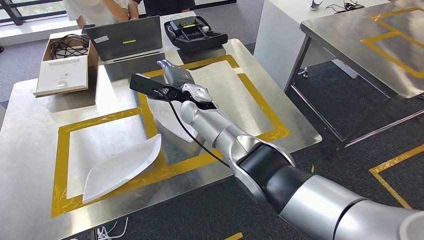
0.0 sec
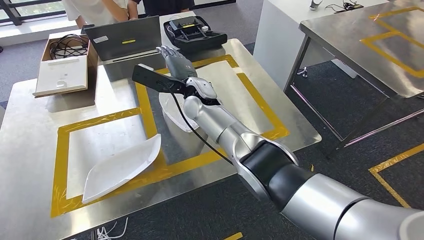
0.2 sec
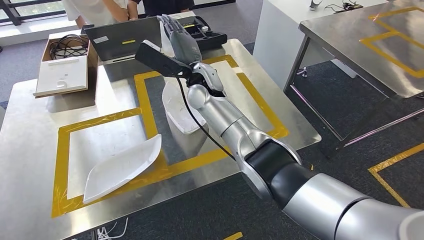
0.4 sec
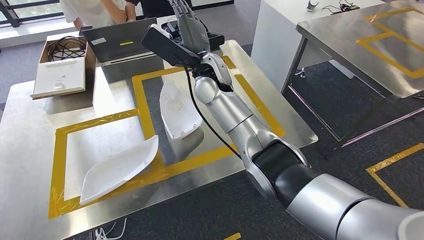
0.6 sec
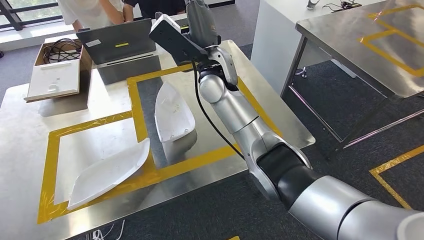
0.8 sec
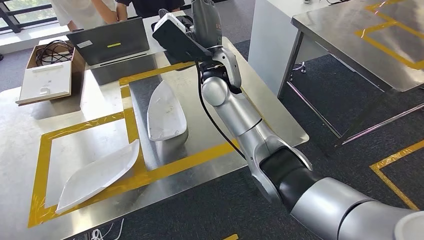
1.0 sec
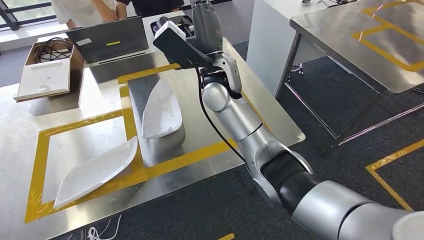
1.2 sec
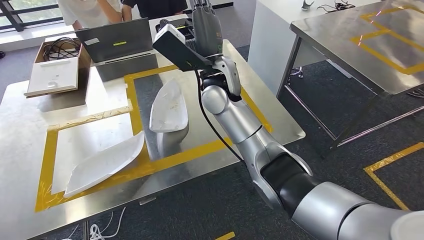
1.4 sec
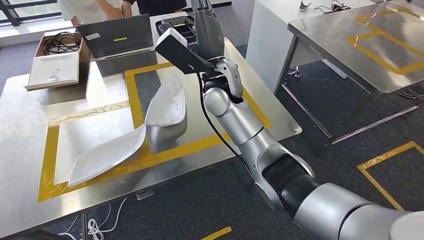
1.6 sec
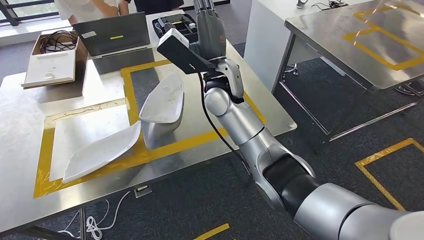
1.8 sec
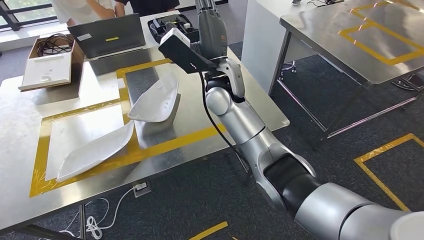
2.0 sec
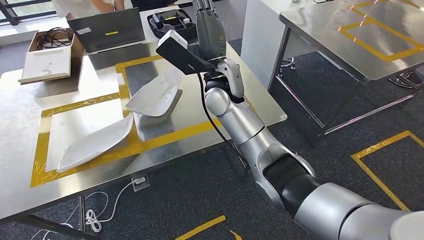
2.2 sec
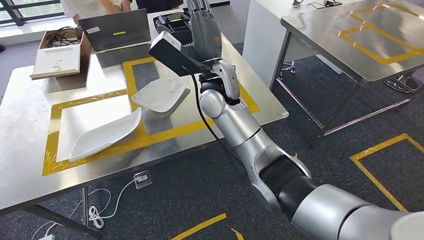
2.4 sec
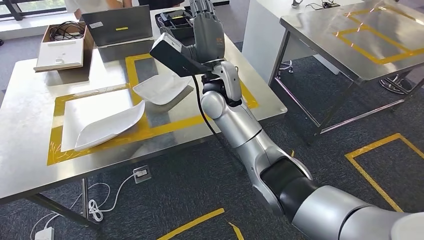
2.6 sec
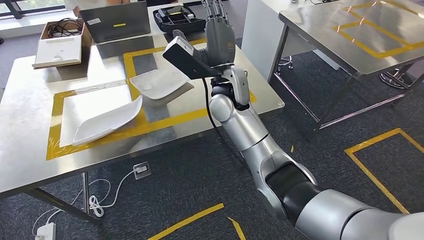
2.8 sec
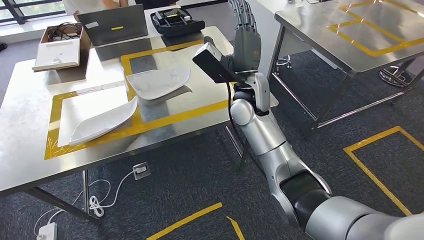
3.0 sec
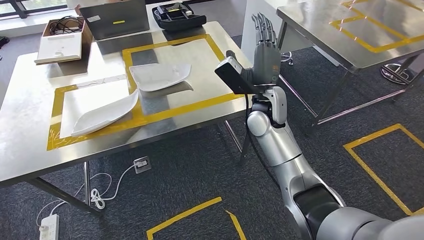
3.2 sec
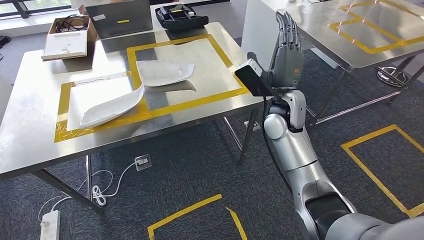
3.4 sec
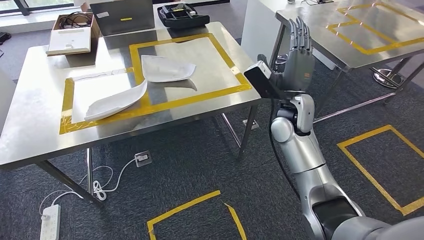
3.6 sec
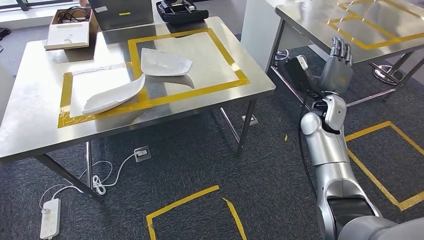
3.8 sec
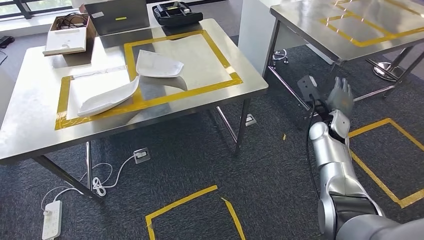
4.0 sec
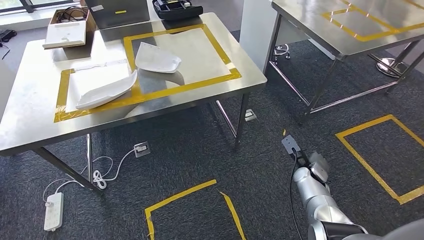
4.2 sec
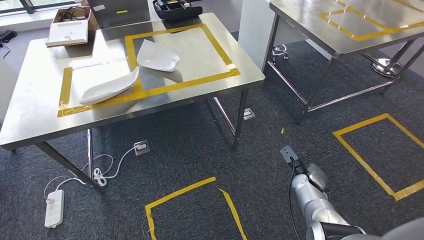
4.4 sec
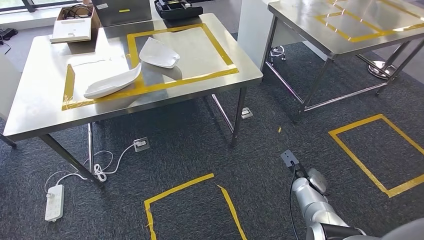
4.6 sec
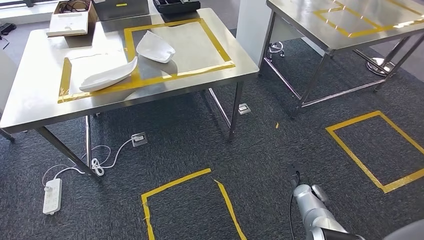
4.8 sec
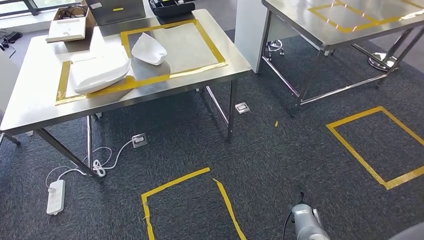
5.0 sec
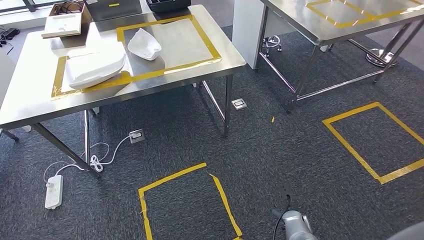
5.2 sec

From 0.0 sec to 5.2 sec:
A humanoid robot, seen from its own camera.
Step, from 1.4 sec to 5.2 sec: Return to the initial position at the workbench.

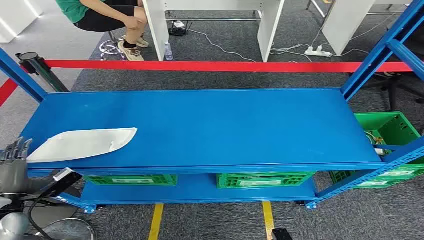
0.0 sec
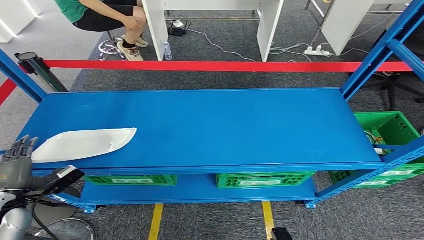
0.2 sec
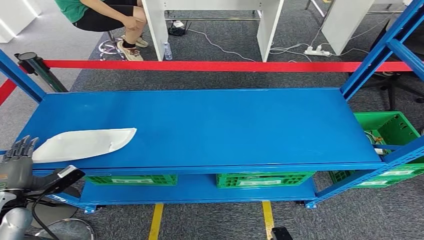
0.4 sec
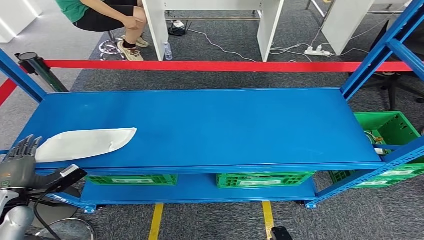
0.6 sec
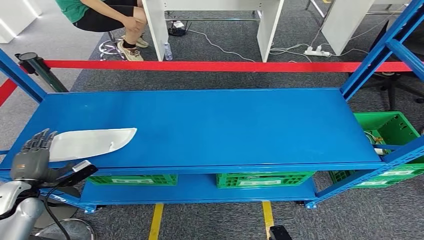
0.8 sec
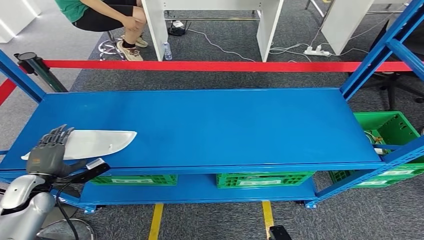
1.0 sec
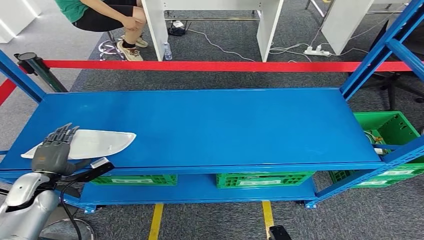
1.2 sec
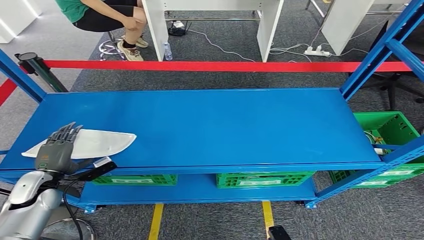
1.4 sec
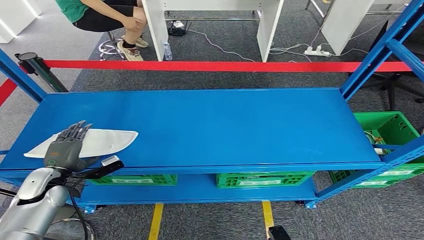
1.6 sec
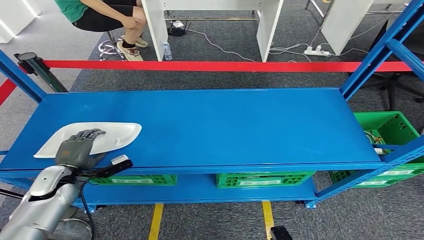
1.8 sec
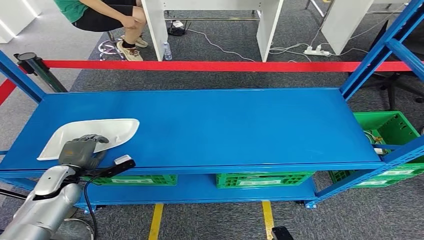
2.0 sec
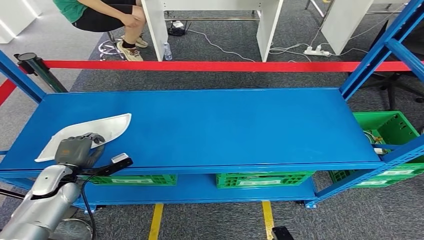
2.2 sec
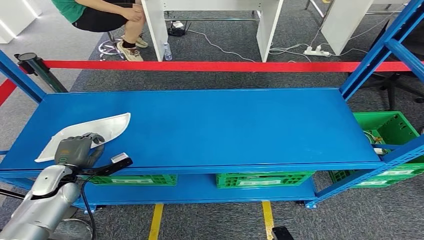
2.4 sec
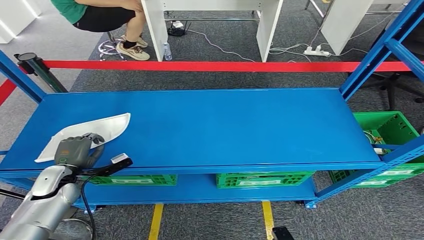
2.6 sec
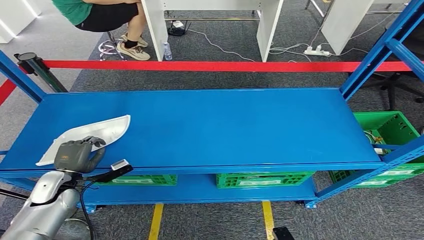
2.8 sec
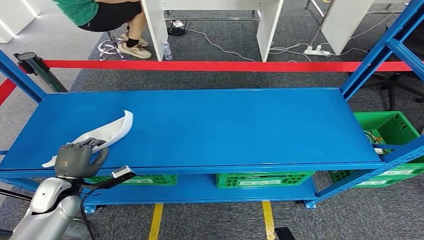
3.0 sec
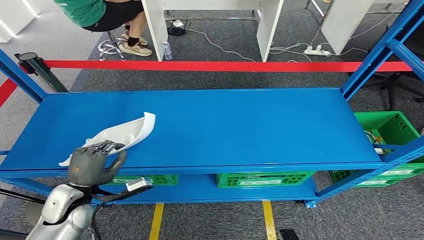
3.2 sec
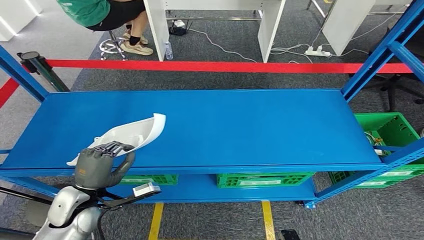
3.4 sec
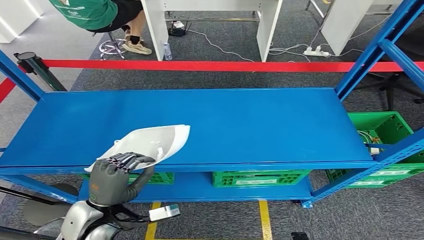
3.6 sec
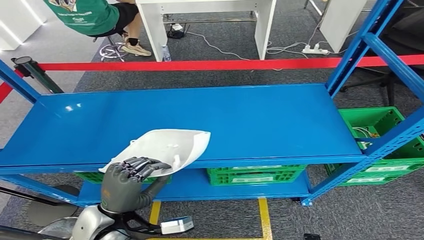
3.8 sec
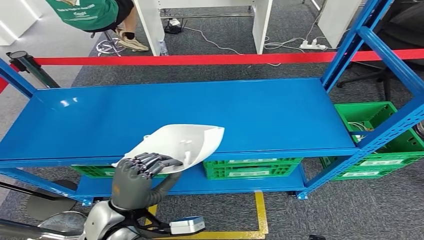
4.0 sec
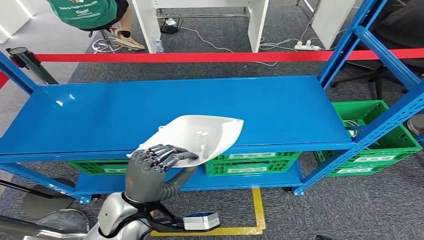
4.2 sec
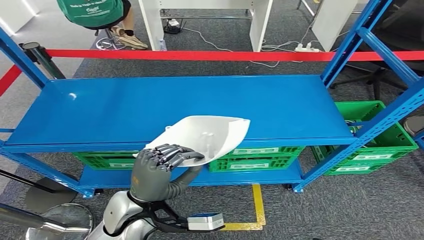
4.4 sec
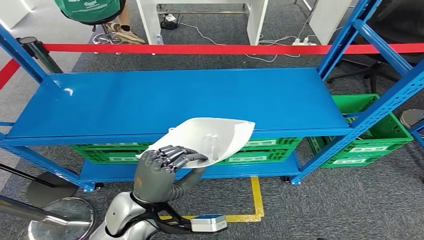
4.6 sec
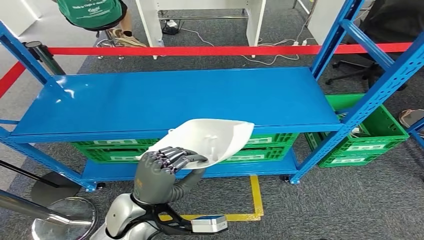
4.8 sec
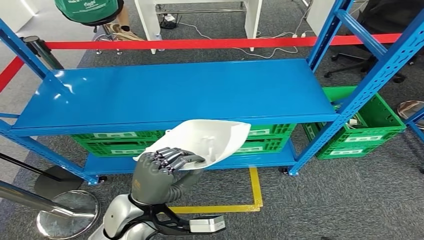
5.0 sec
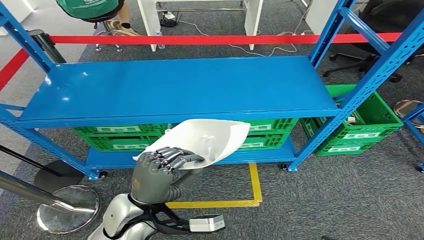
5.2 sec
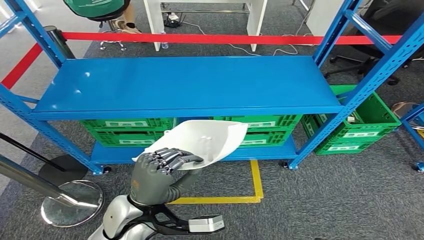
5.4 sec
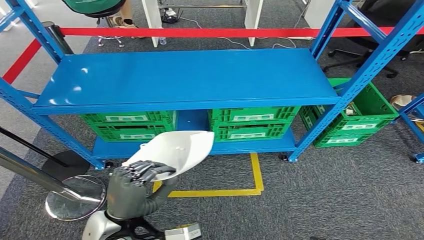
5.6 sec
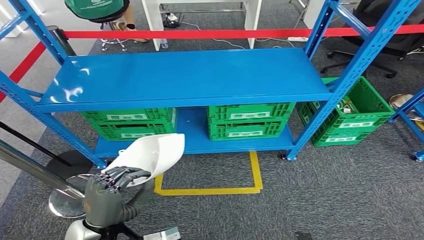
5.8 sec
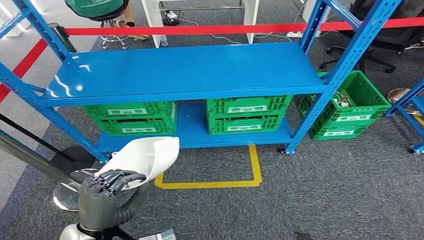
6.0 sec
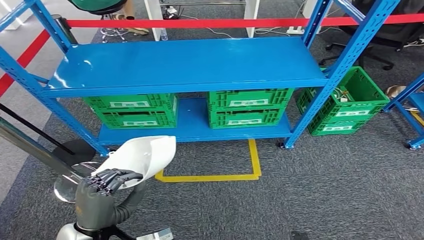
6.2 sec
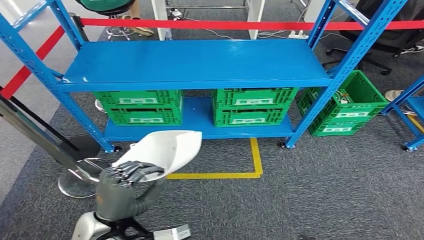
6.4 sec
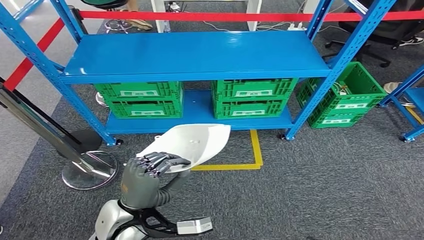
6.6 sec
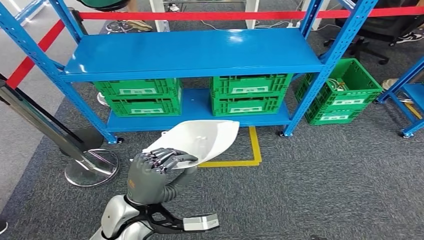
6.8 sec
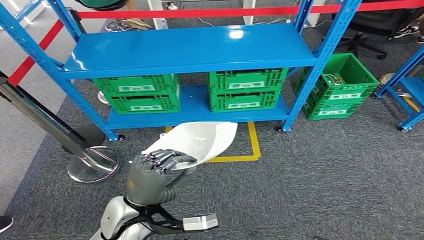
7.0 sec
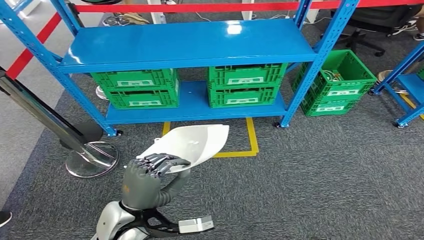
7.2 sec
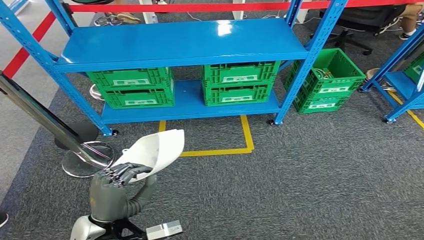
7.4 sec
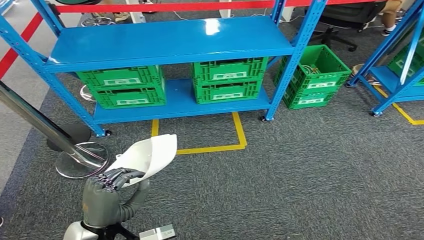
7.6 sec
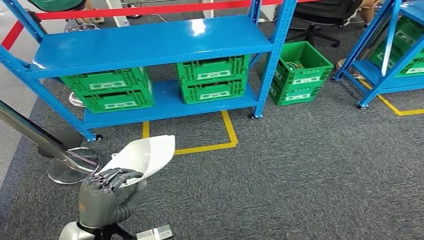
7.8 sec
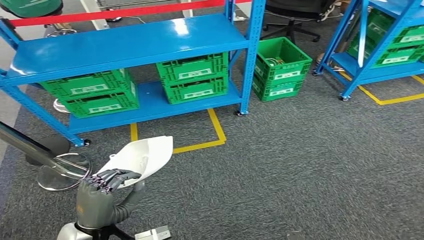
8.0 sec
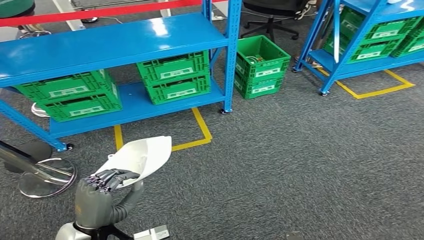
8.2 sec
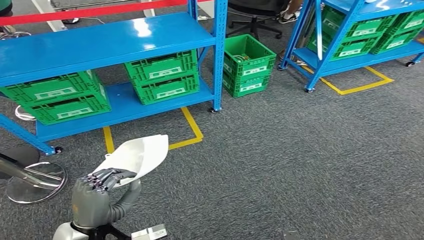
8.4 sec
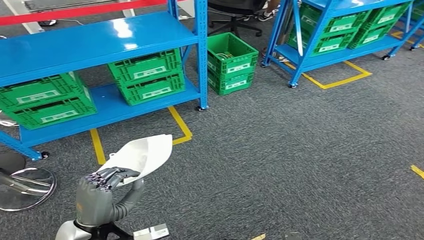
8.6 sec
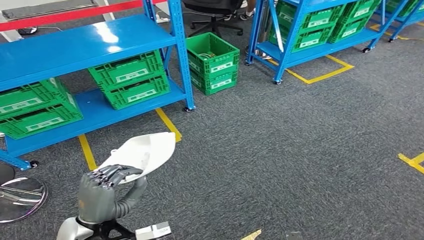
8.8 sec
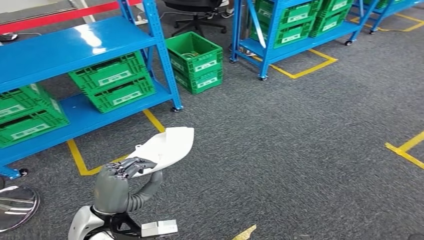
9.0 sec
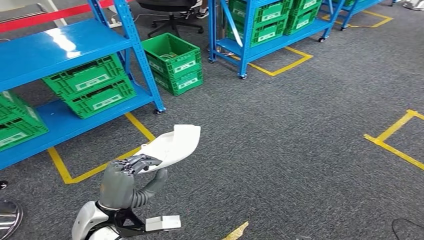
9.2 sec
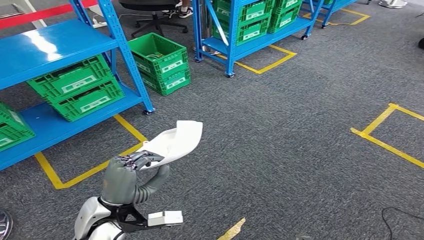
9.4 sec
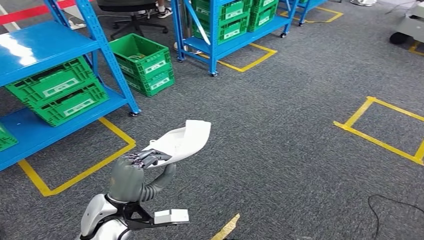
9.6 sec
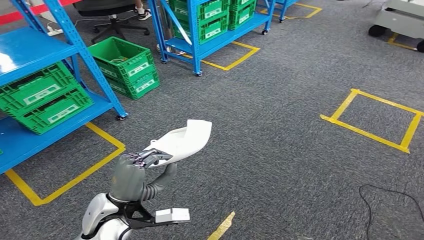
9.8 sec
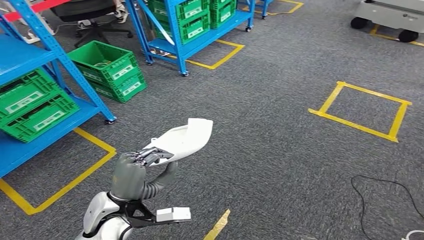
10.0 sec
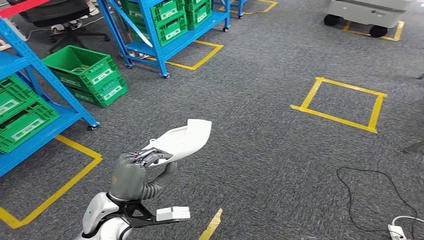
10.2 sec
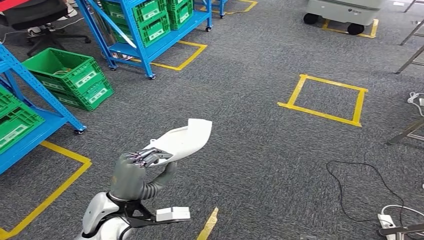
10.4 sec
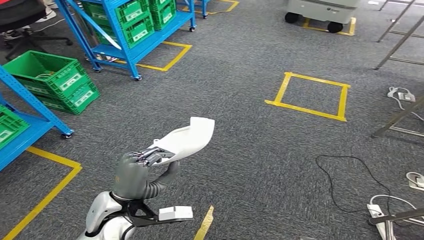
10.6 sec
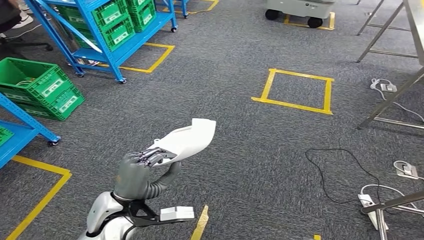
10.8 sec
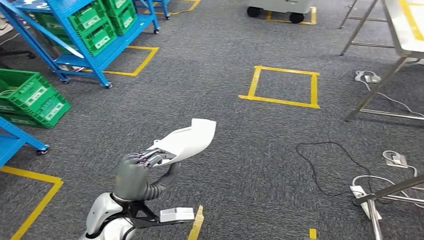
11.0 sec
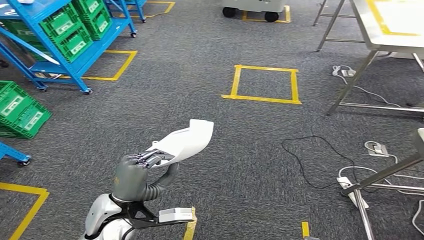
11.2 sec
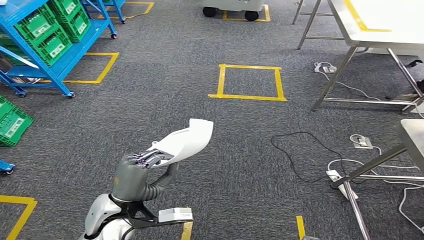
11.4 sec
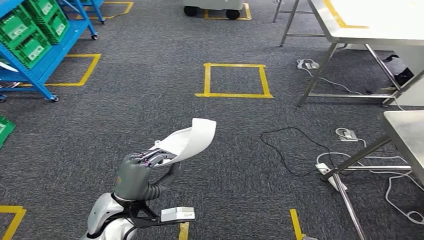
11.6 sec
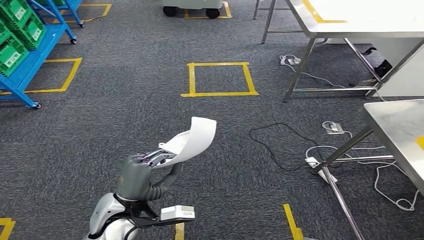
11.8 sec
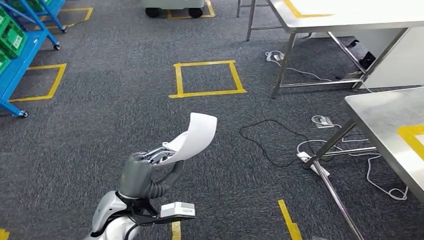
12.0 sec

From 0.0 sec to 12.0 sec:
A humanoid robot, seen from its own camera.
Step, from 0.0 sec to 5.2 sec: Pick up the small component from the shelf.
From 1.6 sec to 3.0 sec: The hands stay close to where they were, moving slightly.
